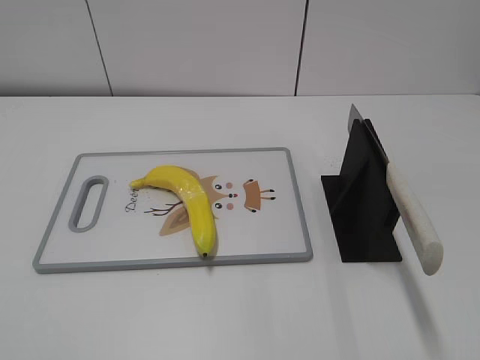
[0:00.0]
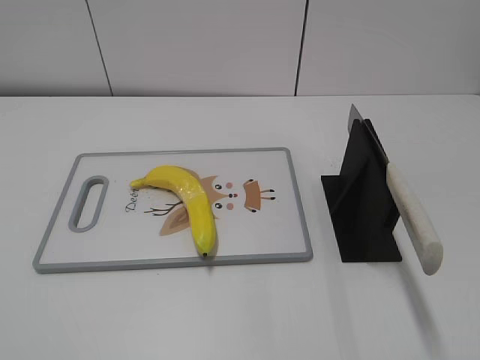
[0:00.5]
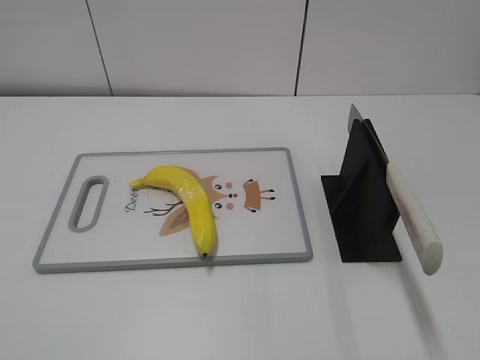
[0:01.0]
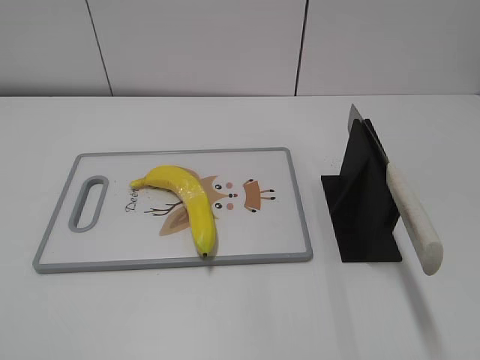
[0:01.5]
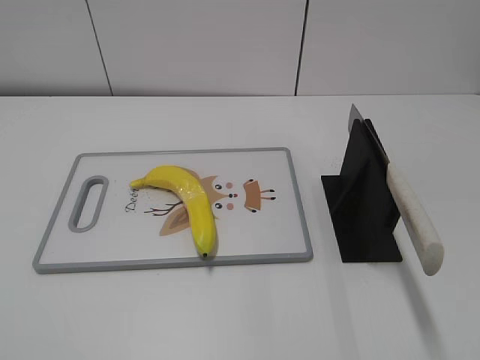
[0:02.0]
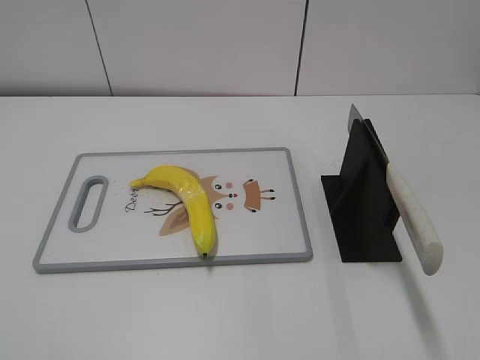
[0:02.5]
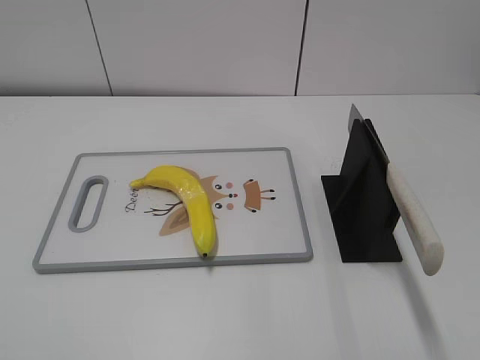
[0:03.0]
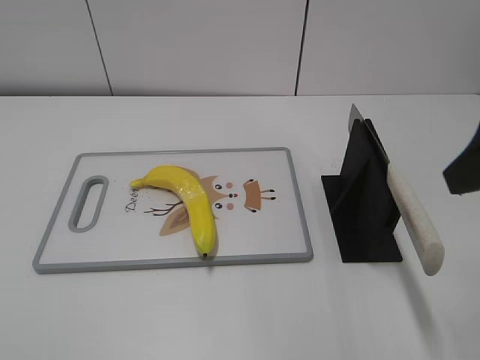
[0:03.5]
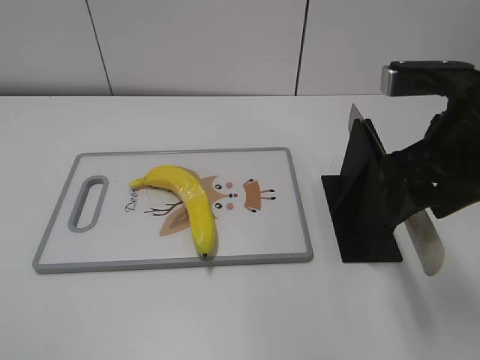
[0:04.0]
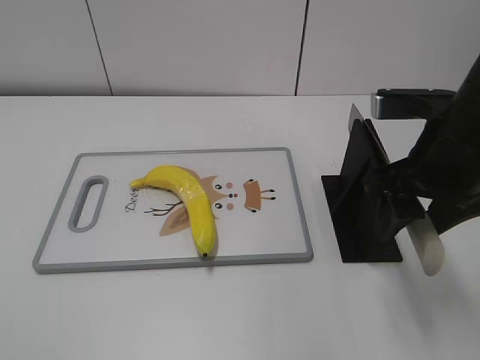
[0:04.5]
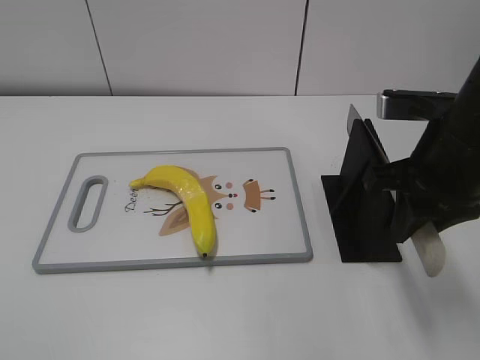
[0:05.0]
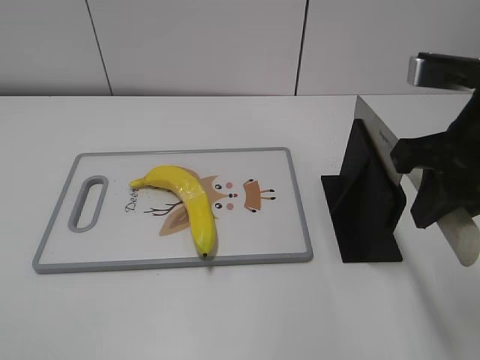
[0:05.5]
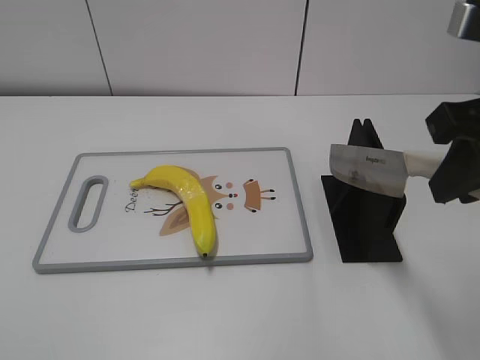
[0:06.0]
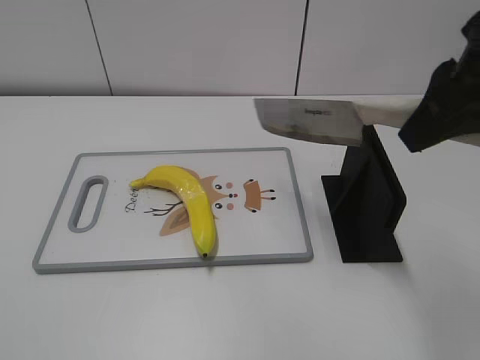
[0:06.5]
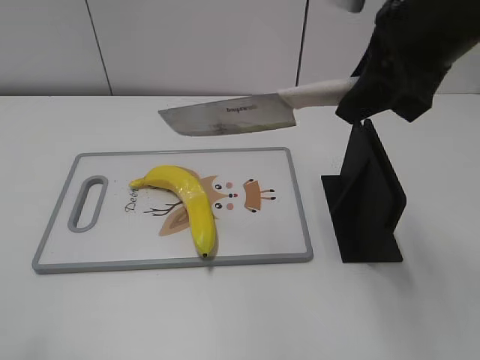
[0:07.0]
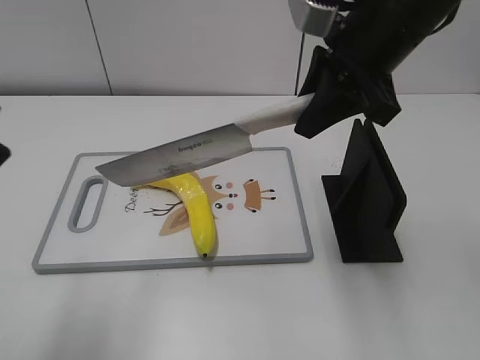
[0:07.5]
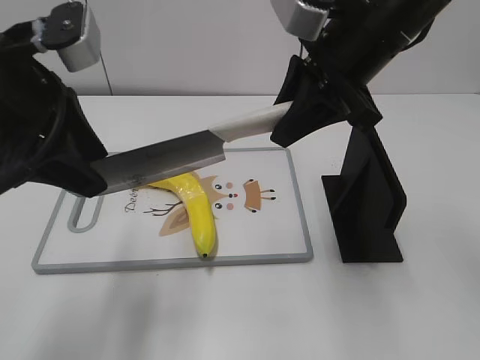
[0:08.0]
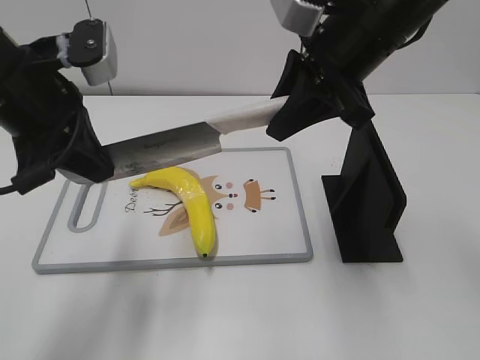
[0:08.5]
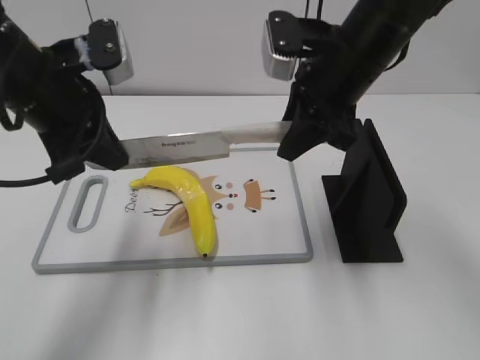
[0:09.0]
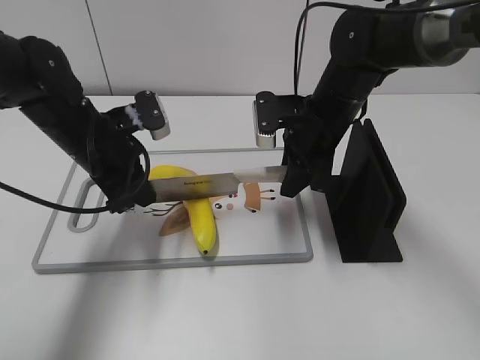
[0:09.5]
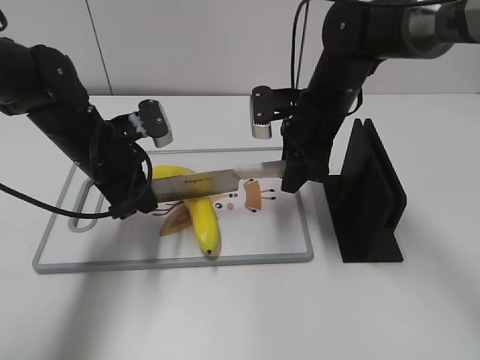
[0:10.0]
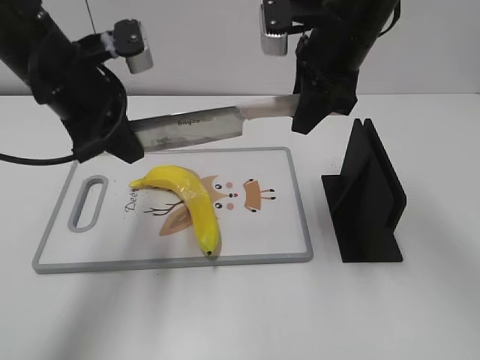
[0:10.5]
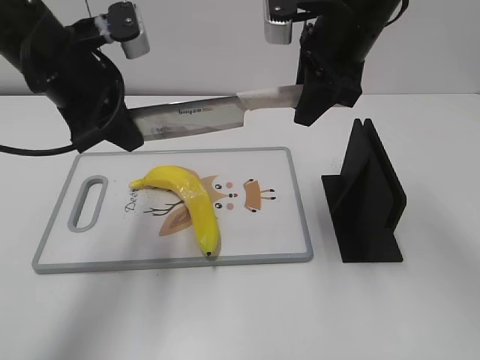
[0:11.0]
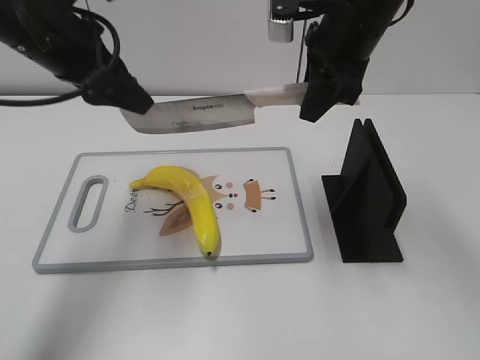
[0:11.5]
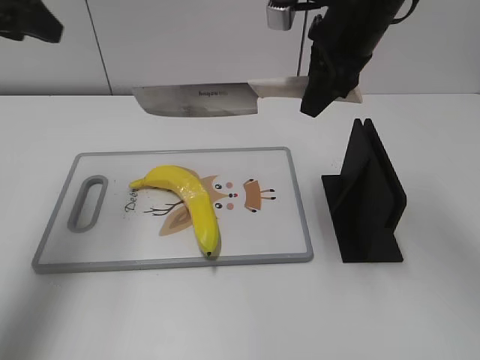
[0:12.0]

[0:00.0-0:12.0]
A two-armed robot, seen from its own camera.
Task of the whole recording: cut plastic banana.
Step, 0:00.0 to 0:06.0: Grab the knife handle with your right hand.
Step, 0:06.5 to 0:10.0: Lift the knife with your right hand.
0:02.0 to 0:04.0: The right gripper heads forward and to the left, covering roughly 25 cm.
0:04.0 to 0:06.0: The right gripper goes about 5 cm upward, and closes.
0:06.0 to 0:08.0: The right gripper heads forward and to the left, covering approximately 15 cm, while the left gripper heads forward and to the right, covering about 30 cm.
0:08.0 to 0:10.0: Both grippers move downward and forward, approximately 15 cm. The left gripper closes its fingers.
0:10.0 to 0:12.0: The right gripper heads upward, covering some 15 cm, while the left gripper moves upward and to the left, roughly 20 cm, and opens its fingers.

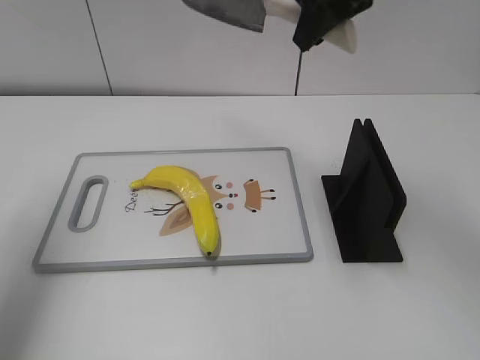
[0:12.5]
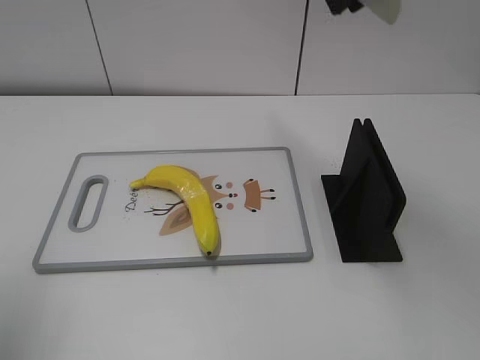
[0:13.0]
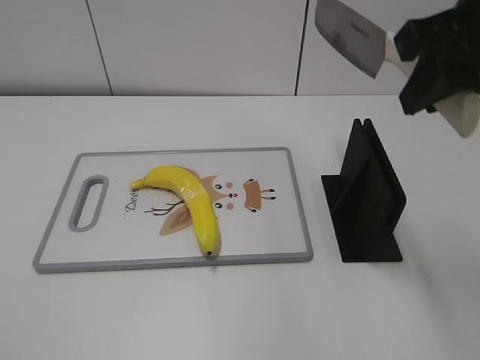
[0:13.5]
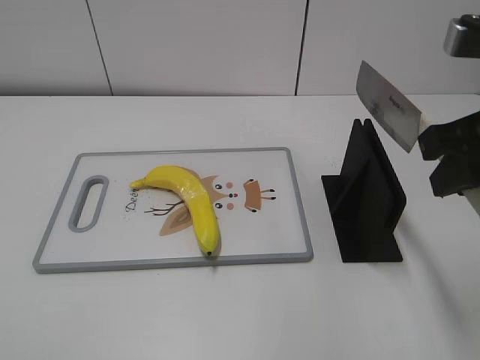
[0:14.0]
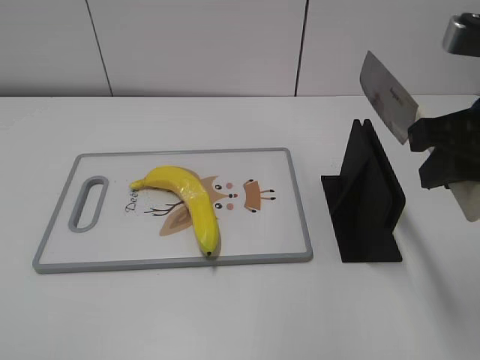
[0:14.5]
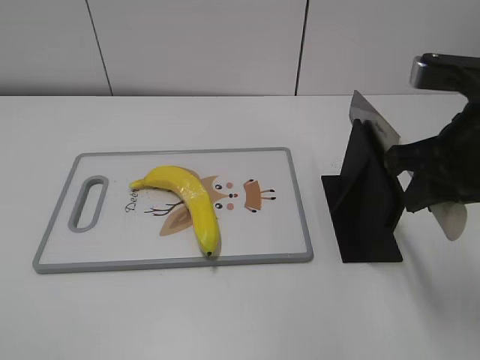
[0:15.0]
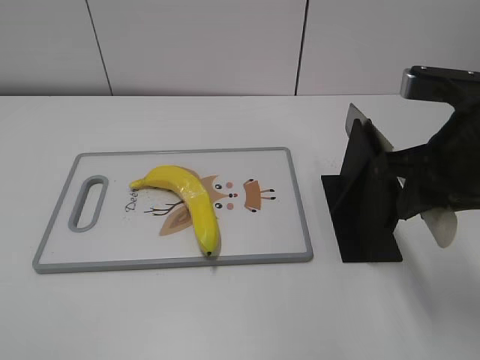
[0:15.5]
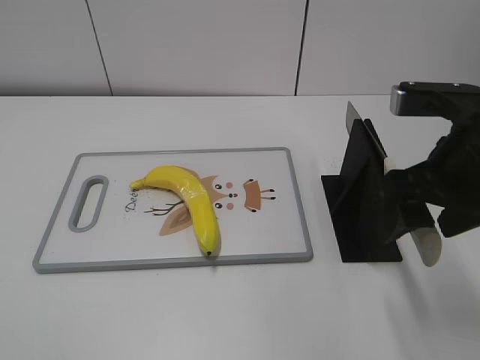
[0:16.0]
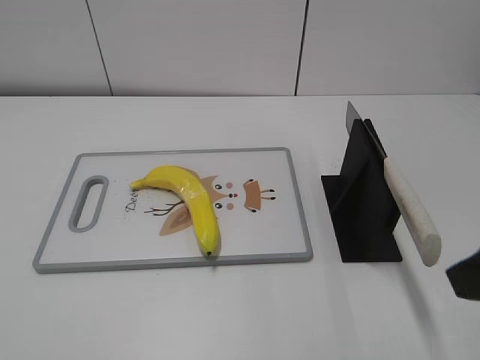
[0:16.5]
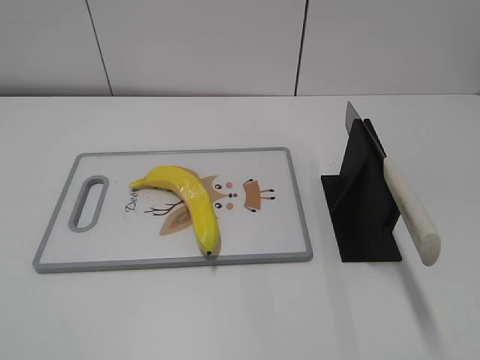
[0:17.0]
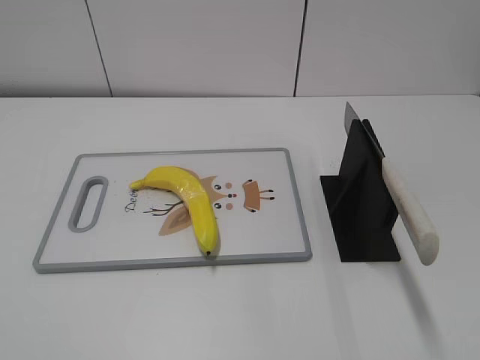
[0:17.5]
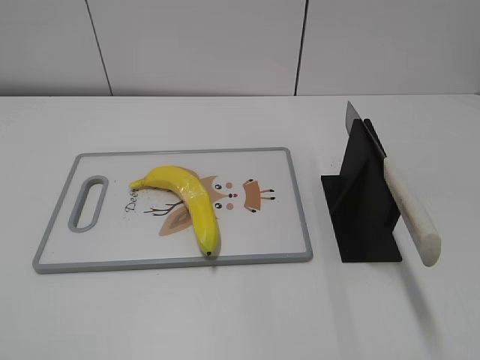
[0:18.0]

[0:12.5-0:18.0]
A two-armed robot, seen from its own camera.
Task of the whole recording: cut plastic banana.
Step, 0:12.5 to 0:13.5: Lift the knife with your right hand.
Step, 0:14.0 to 0:18.0: Place the knife on the storage rack with your right hand.
0:12.5 to 0:14.5: The right gripper heads backward and to the right, covering roughly 20 cm; the left gripper shifts some 30 cm backward.
0:14.5 to 0:16.0: The right gripper opens.
0:16.0 to 0:18.0: The right gripper shifts roughly 25 cm backward and to the right.

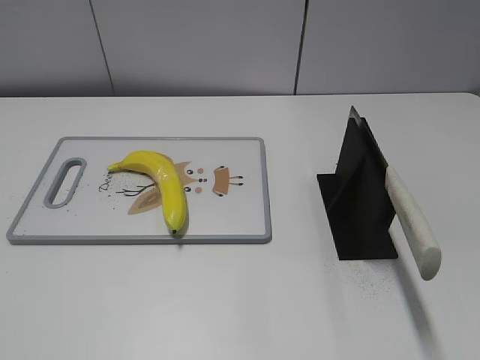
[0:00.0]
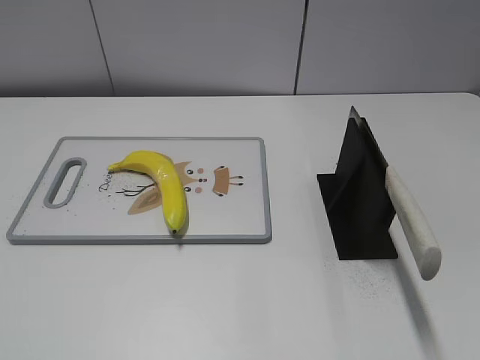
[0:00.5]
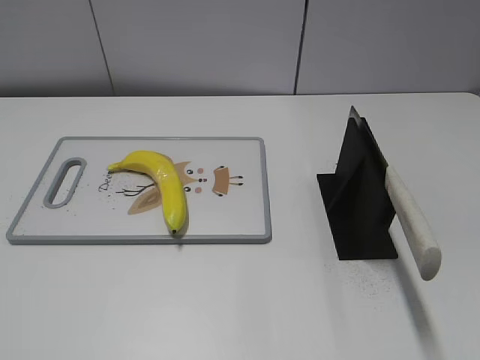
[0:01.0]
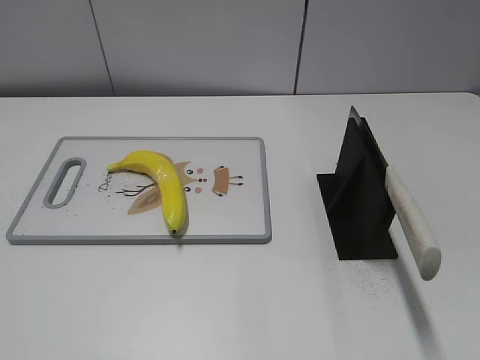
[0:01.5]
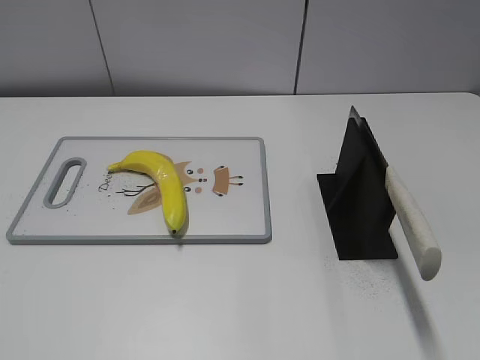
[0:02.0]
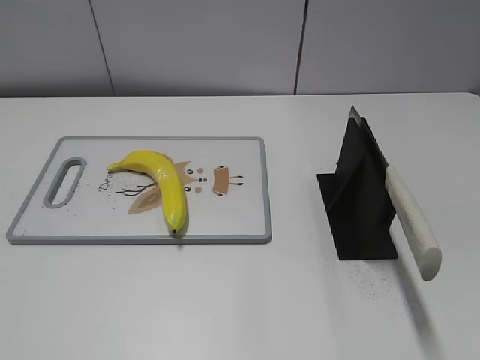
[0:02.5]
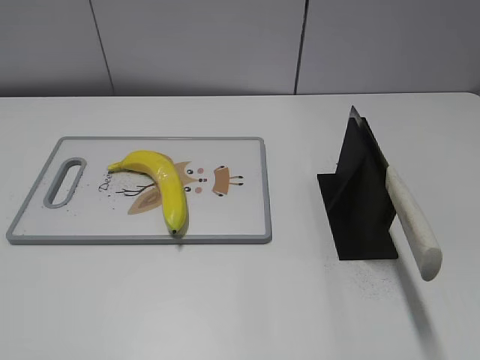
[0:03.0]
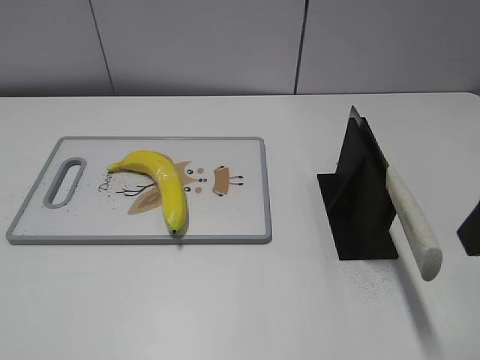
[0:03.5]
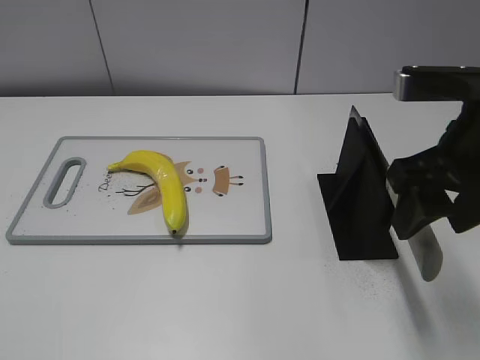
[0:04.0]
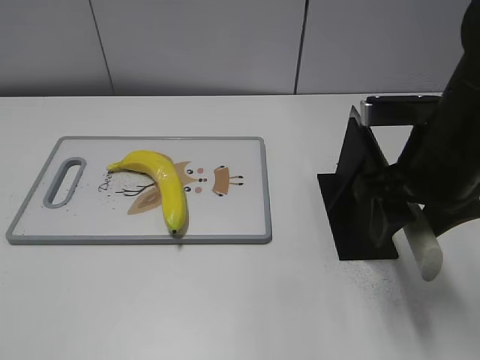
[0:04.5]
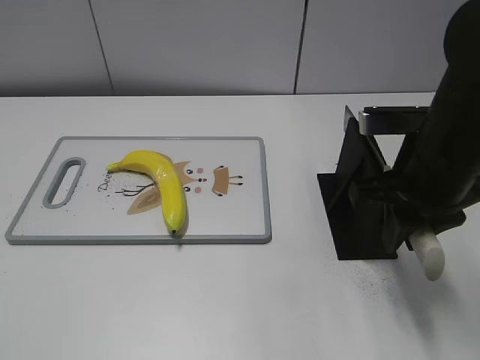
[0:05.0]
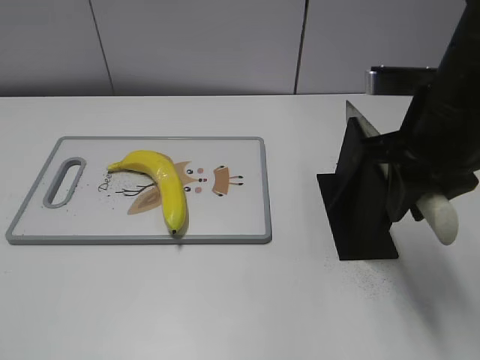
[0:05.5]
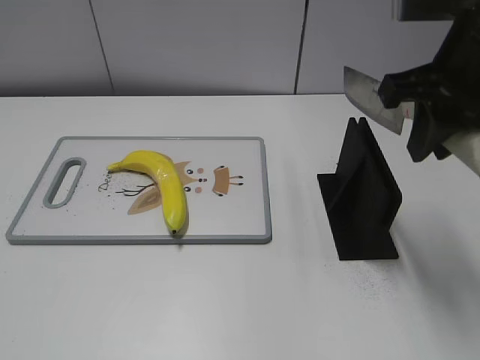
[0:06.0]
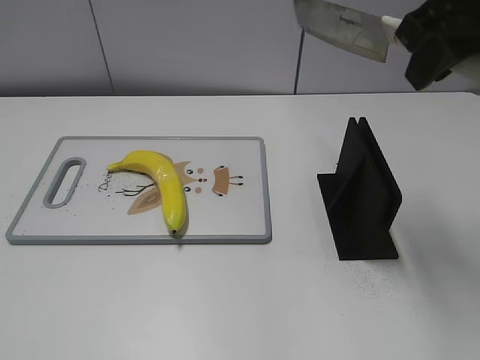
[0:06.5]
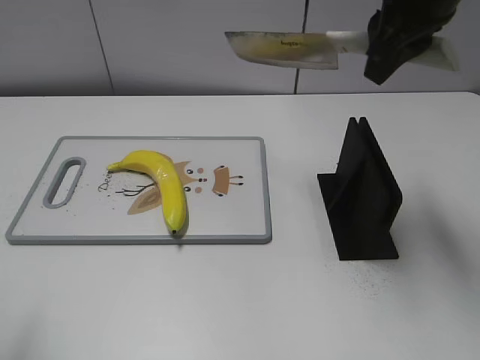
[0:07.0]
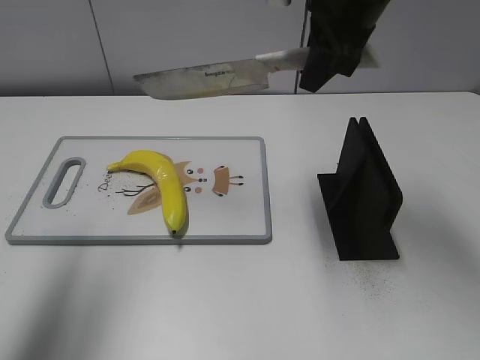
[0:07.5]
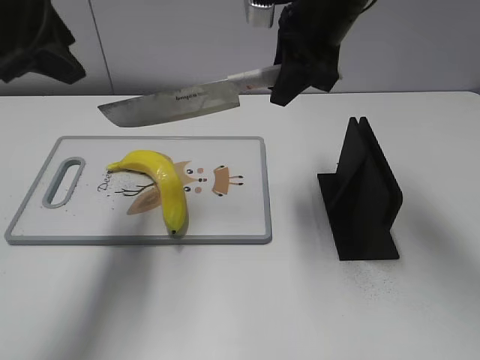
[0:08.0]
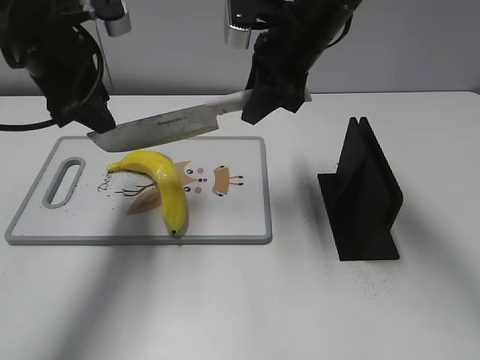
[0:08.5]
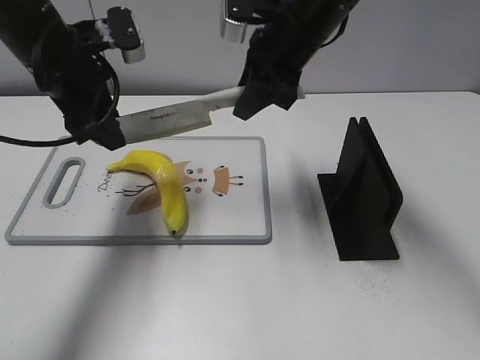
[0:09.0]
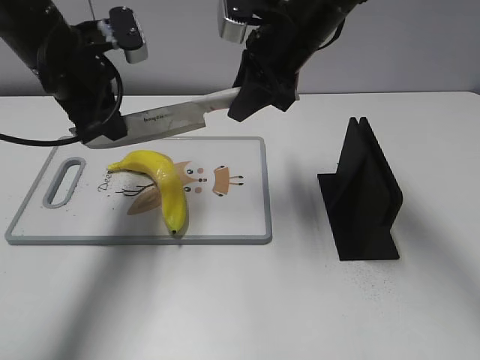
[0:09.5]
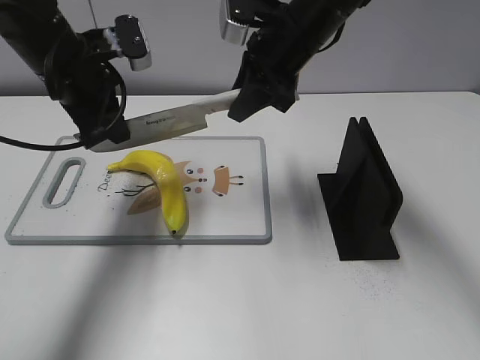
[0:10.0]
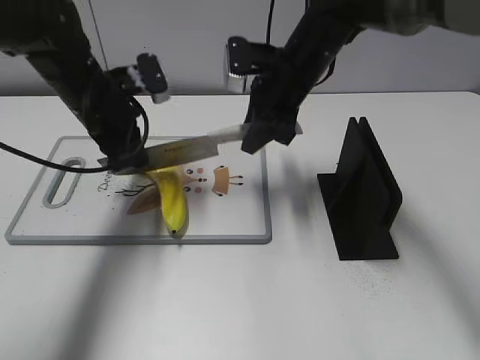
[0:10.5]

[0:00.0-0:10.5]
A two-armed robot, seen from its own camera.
Task of the whole recording: cut plastic banana.
Step, 0:00.0 to 0:06.0: Grab the knife handle with your right hand.
0:02.0 to 0:04.0: The right gripper moves forward and to the left, approximately 25 cm.
0:04.0 to 0:06.5: The right gripper heads upward and forward, covering approximately 10 cm, and closes its fingers.
0:06.5 to 0:08.5: The right gripper is displaced forward, downward and to the left by about 20 cm. Meanwhile the left gripper travels forward by about 30 cm.
0:08.5 to 0:10.5: Both grippers move downward, some 10 cm. The left gripper closes.
